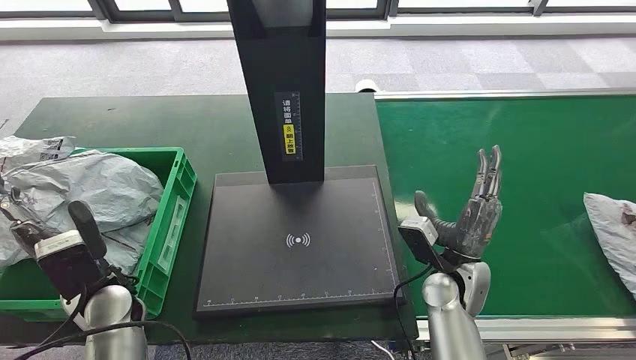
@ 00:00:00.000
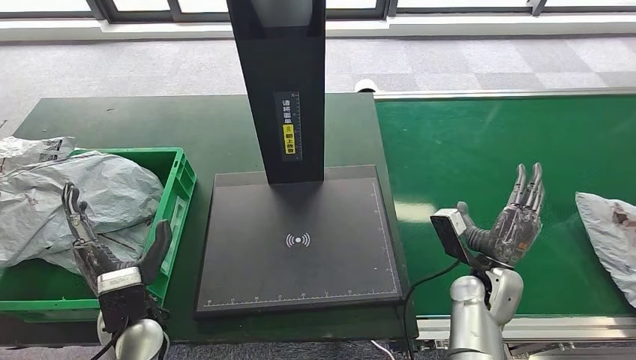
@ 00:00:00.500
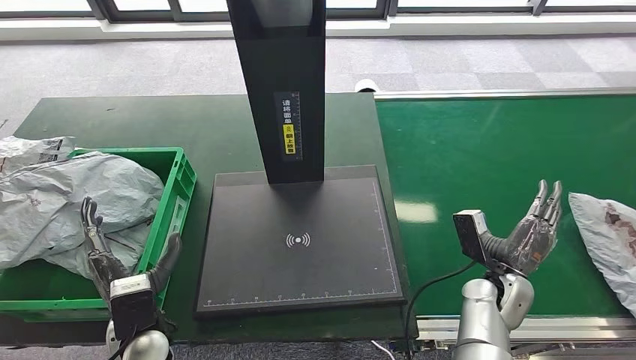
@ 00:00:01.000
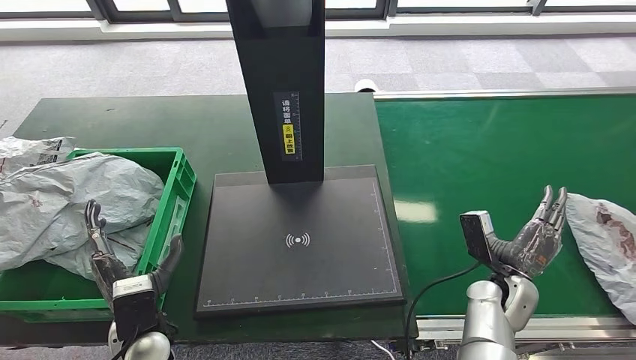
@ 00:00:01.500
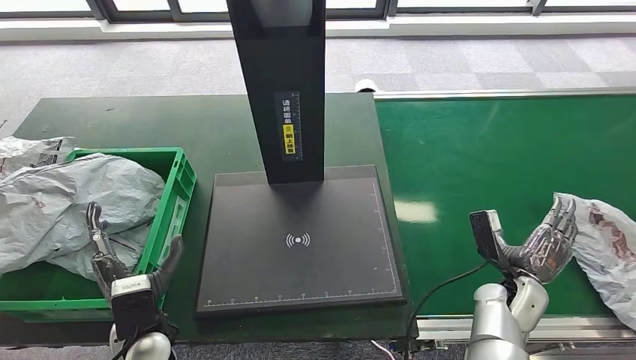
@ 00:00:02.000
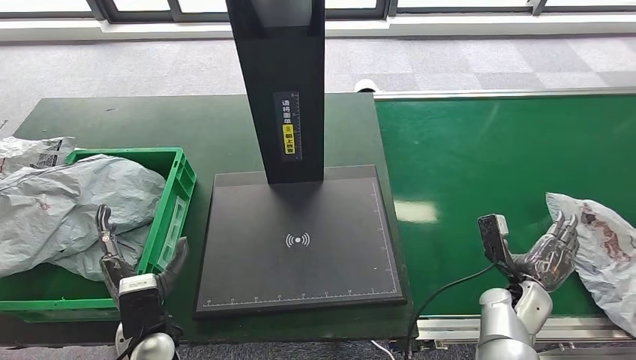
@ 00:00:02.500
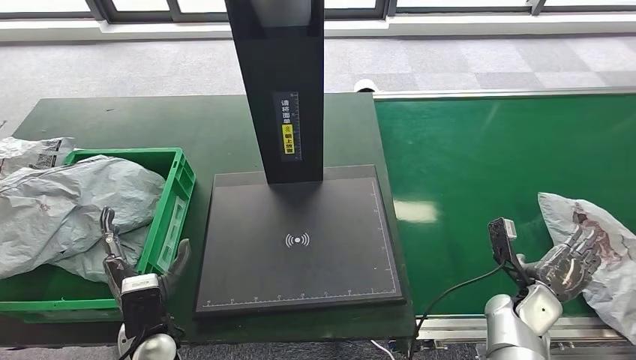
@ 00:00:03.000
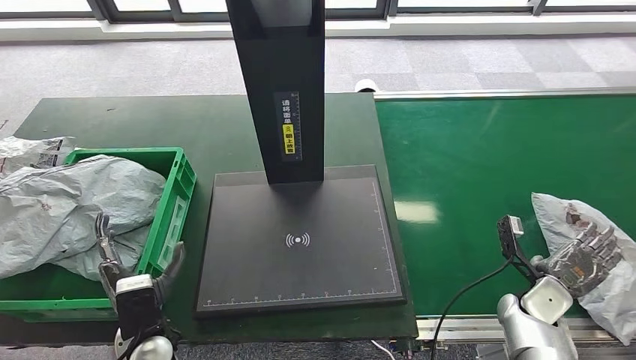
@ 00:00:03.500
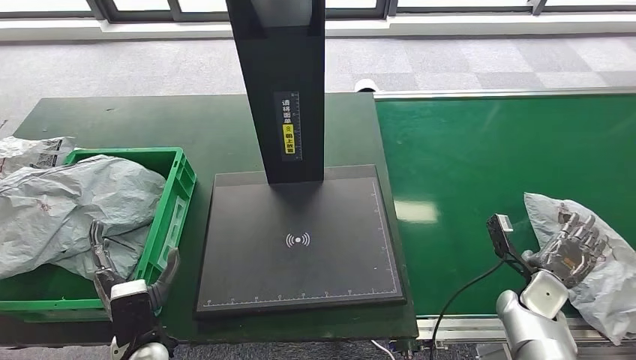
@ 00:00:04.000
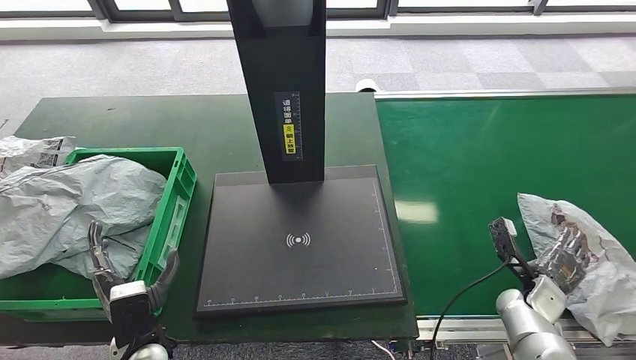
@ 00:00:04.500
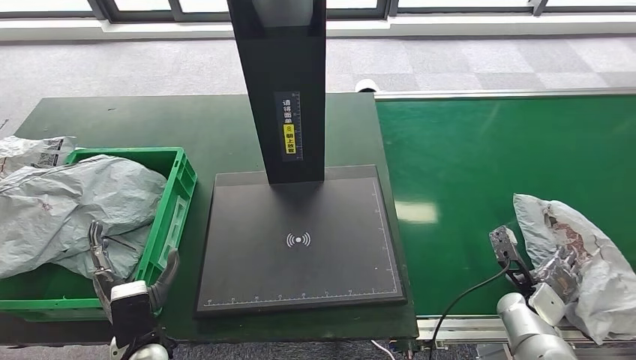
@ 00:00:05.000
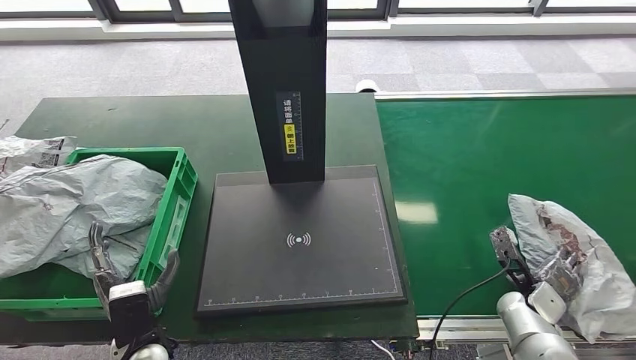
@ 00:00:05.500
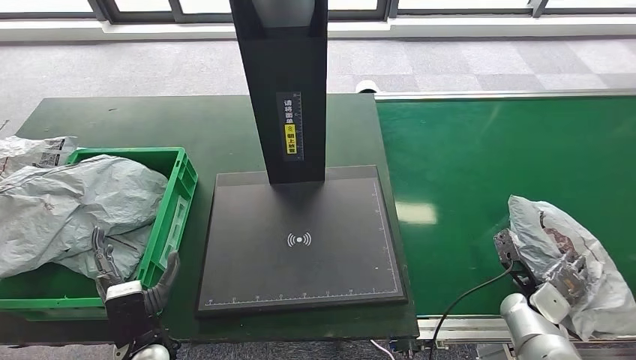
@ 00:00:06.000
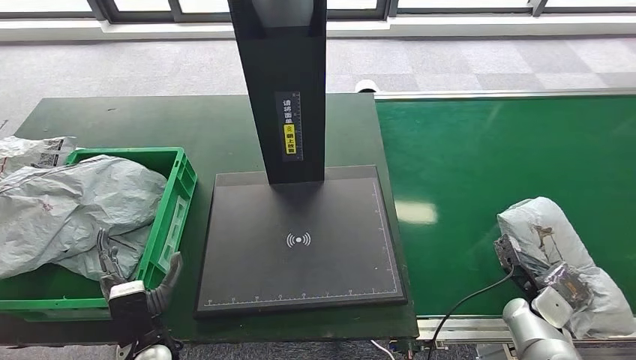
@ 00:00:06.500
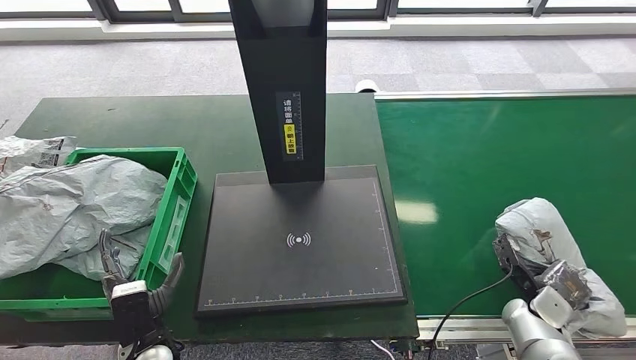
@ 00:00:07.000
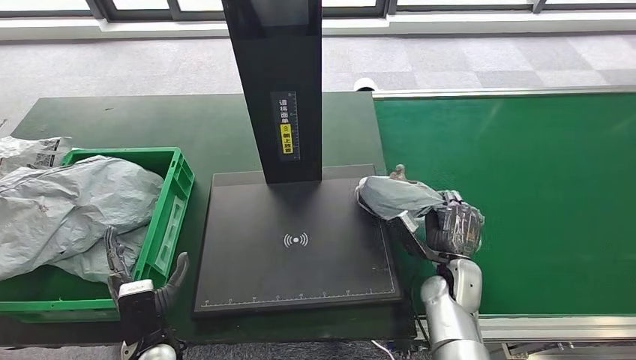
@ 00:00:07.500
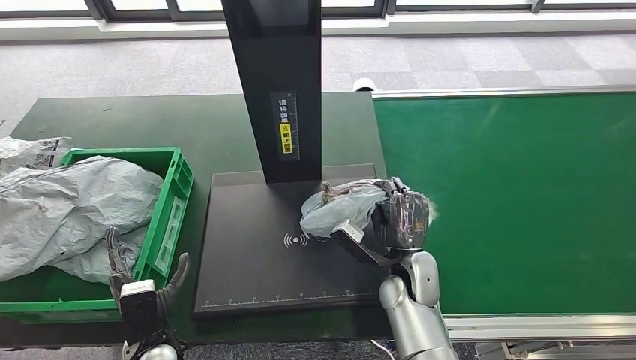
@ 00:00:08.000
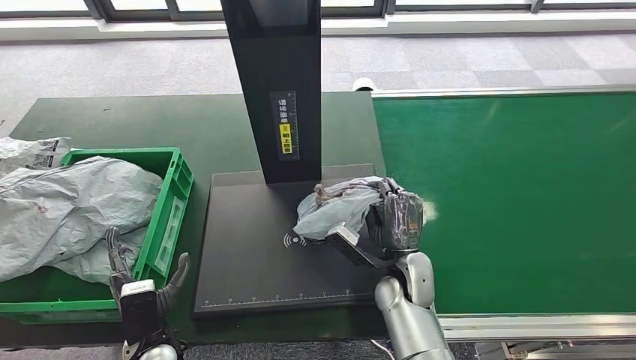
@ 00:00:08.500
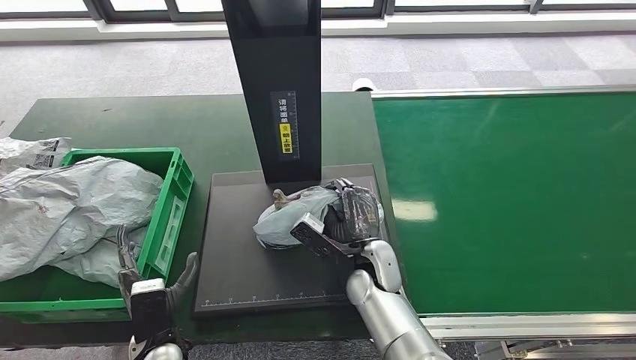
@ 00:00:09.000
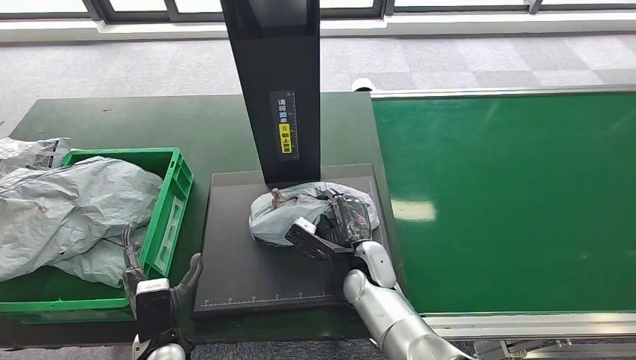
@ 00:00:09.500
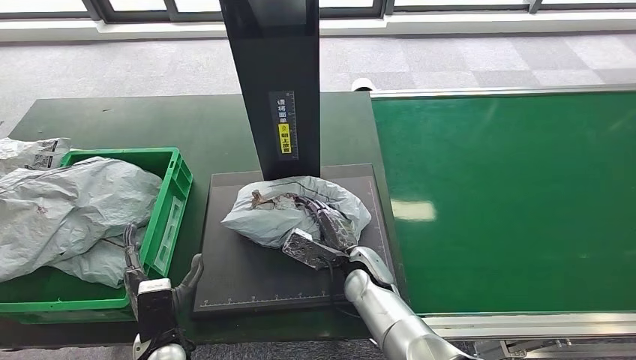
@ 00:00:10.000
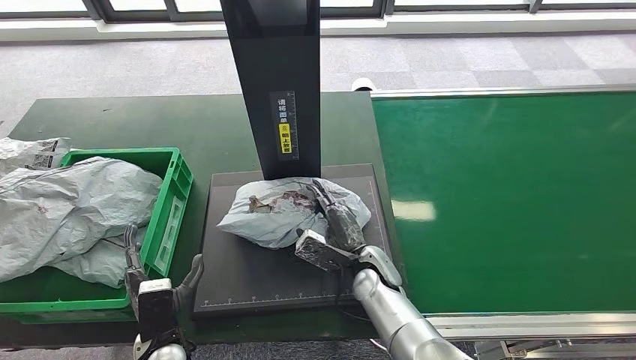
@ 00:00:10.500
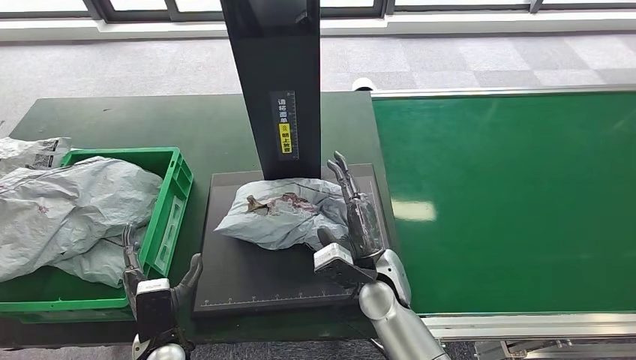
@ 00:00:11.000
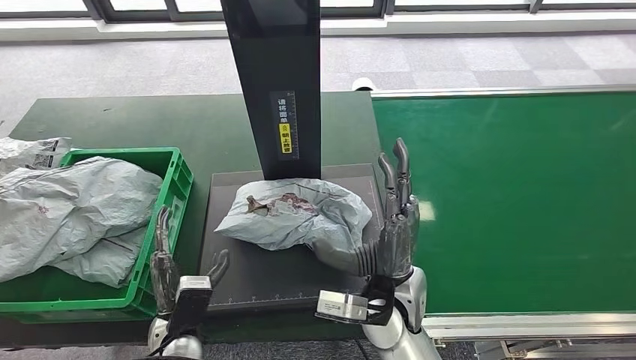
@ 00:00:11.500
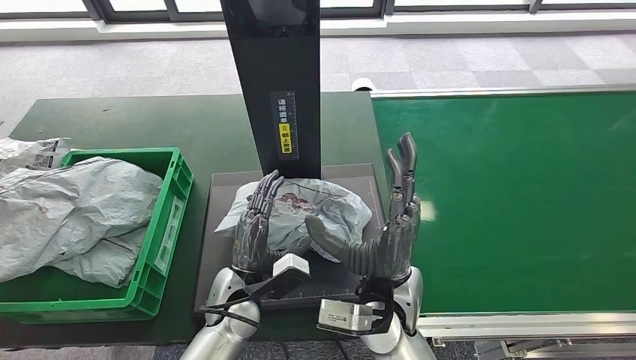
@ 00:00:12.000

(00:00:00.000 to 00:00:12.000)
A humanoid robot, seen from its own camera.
Step, 00:00:04.000 - 00:00:07.500: Pick up the parcel from the conveyor belt.
Step, 00:00:08.000 - 00:00:11.000: Place the parcel onto the inbound machine.
00:00:00.000 - 00:00:02.000: The right hand is displaced to the right and downward by approximately 10 cm; the left hand travels backward, to the right and downward by some 10 cm.
00:00:02.000 - 00:00:04.000: The right hand travels to the right by roughly 5 cm.
00:00:08.000 - 00:00:10.000: The right hand travels to the left by roughly 10 cm.
00:00:10.000 - 00:00:12.000: The right hand is displaced upward by approximately 15 cm. Meanwhile the left hand is displaced to the right, forward and upward by some 15 cm.

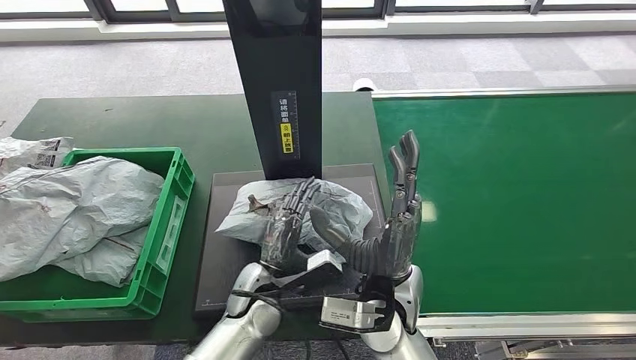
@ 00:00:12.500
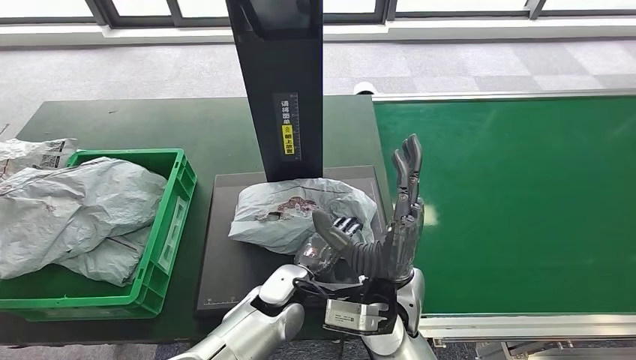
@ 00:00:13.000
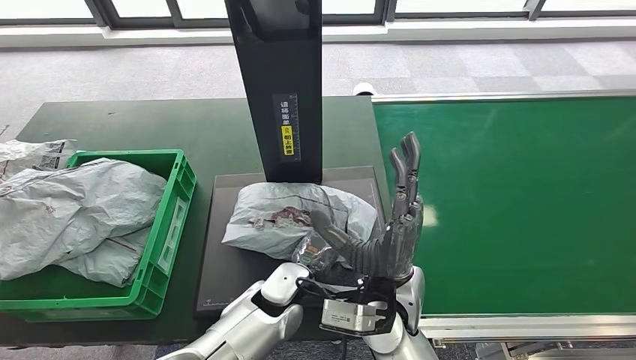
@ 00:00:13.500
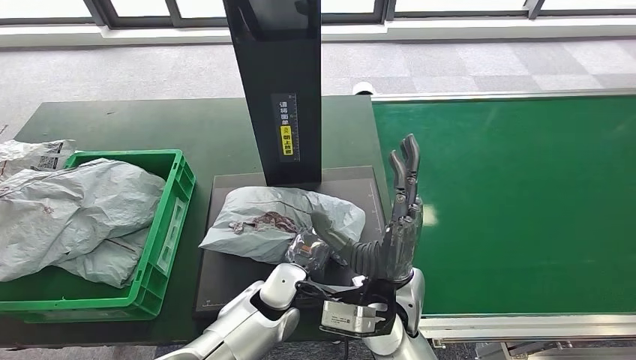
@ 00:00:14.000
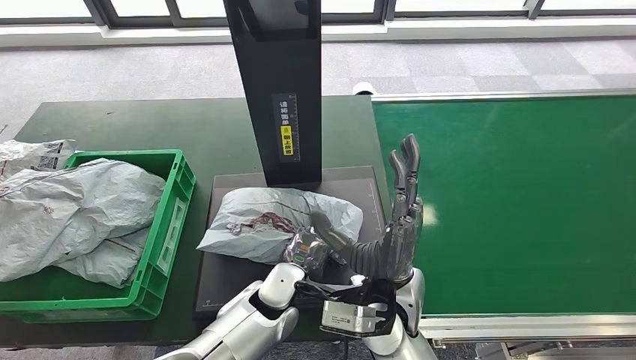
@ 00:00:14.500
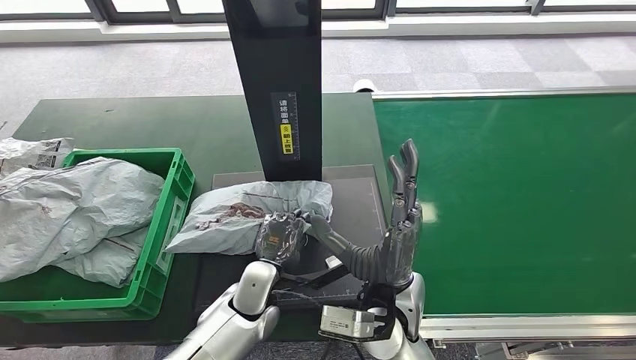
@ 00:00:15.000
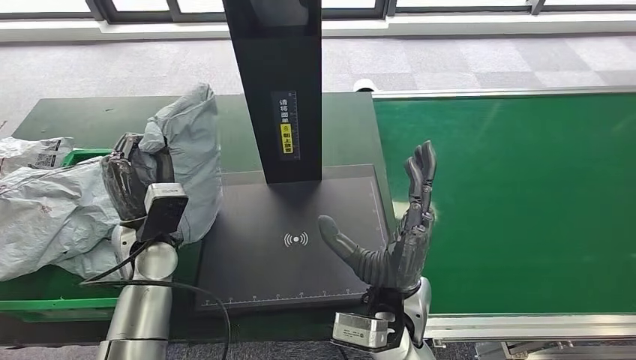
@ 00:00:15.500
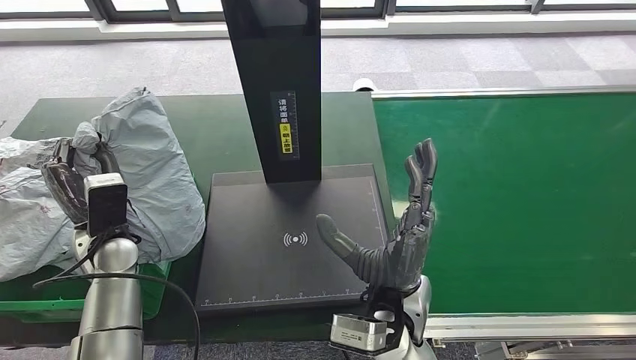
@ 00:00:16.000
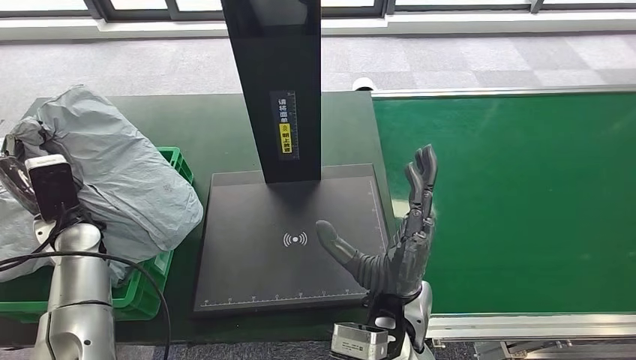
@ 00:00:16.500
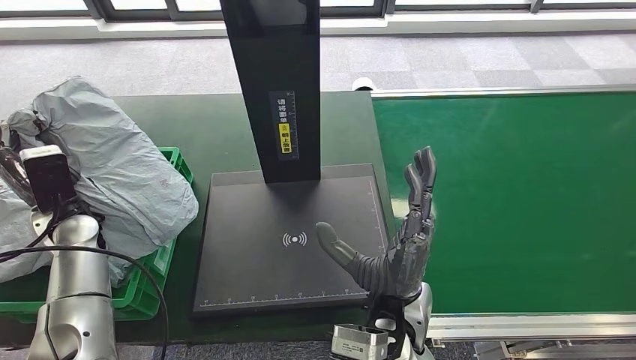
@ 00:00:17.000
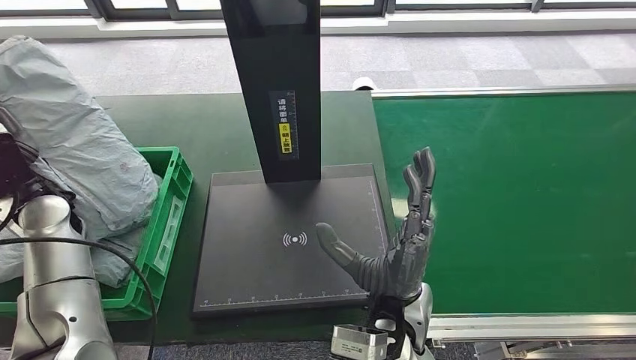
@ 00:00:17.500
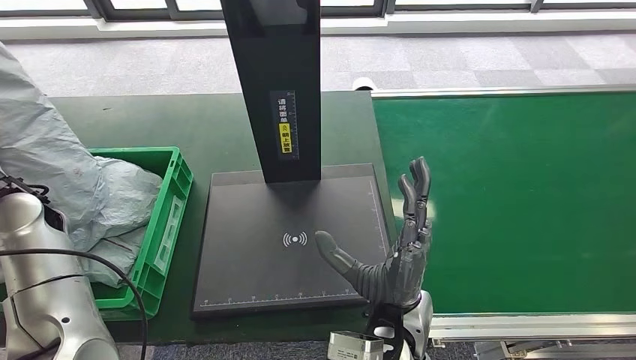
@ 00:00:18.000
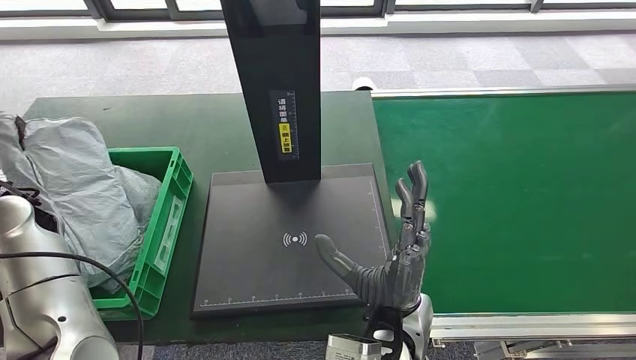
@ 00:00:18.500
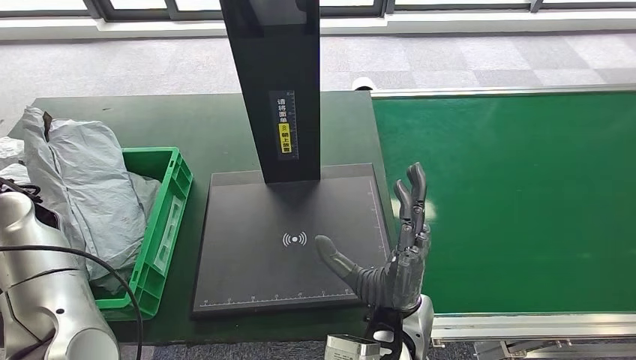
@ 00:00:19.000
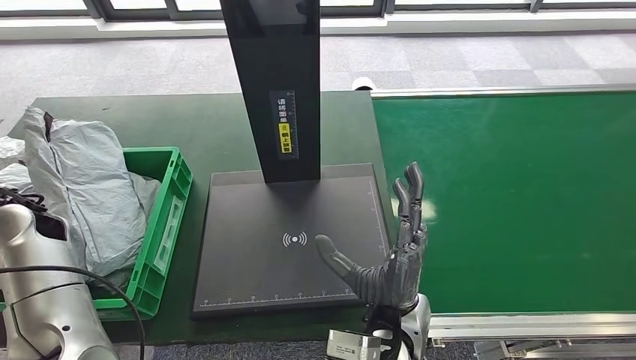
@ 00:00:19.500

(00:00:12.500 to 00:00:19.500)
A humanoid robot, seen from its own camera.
Step, 00:00:14.500 - 00:00:16.000: Pick up the parcel from the inbound machine.
Step, 00:00:16.500 - 00:00:19.500: Place the parcel into the delivery box.
00:00:17.500 - 00:00:19.500: The hands move only a little.
